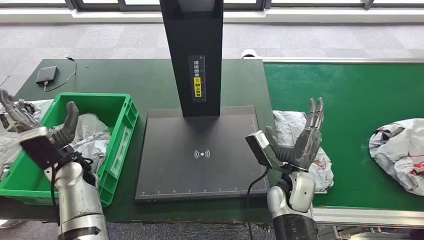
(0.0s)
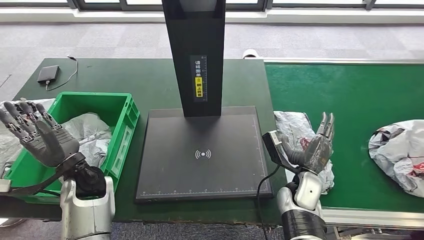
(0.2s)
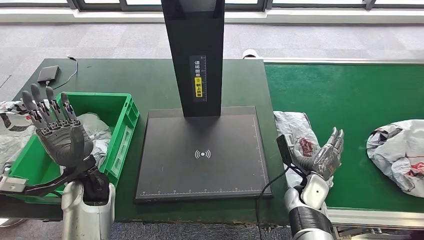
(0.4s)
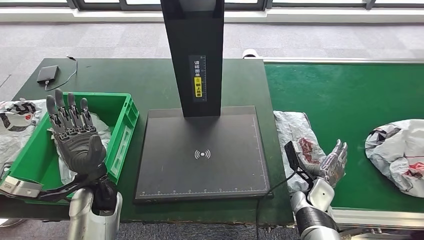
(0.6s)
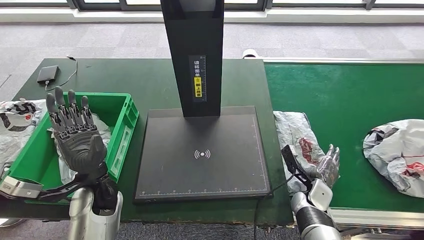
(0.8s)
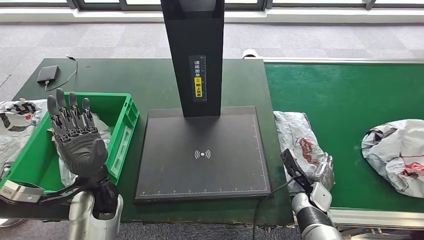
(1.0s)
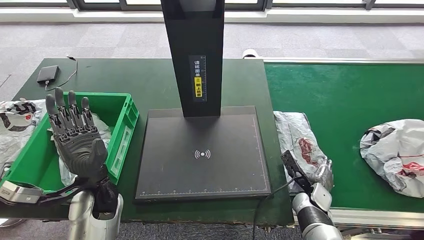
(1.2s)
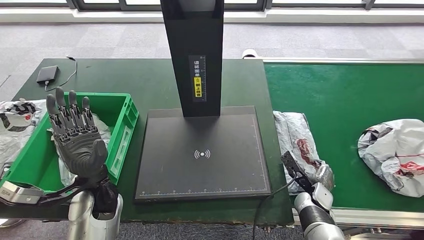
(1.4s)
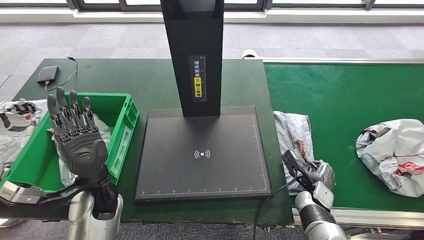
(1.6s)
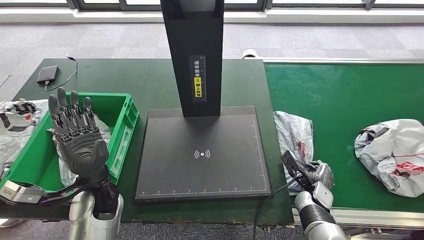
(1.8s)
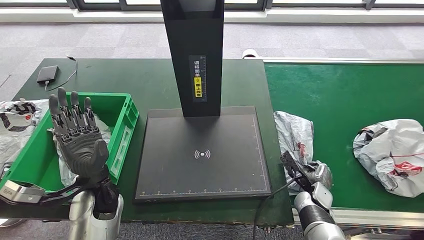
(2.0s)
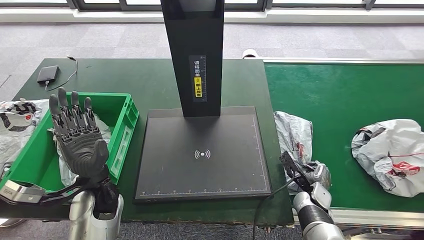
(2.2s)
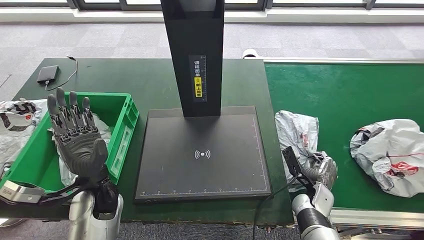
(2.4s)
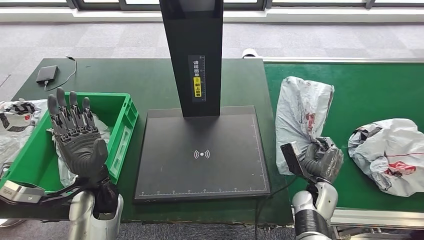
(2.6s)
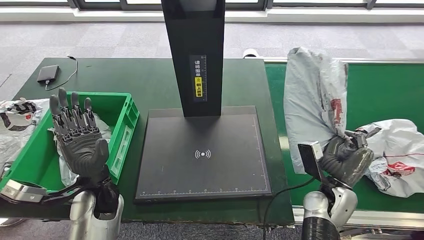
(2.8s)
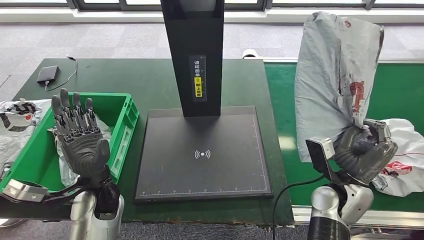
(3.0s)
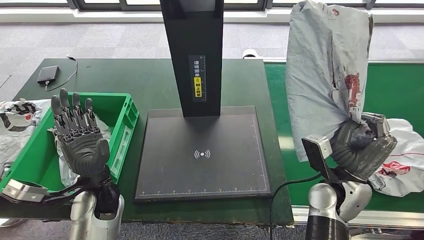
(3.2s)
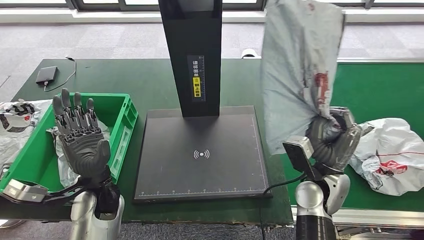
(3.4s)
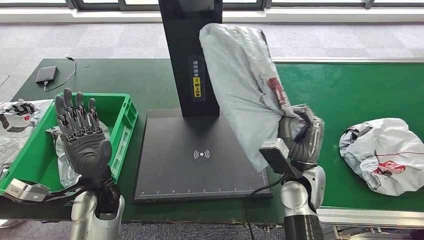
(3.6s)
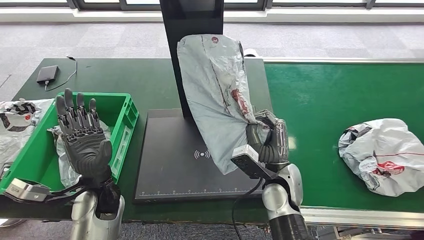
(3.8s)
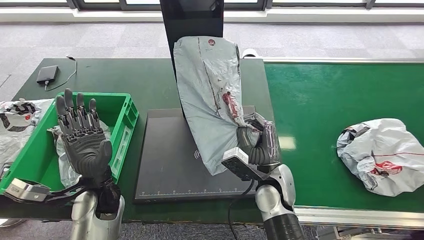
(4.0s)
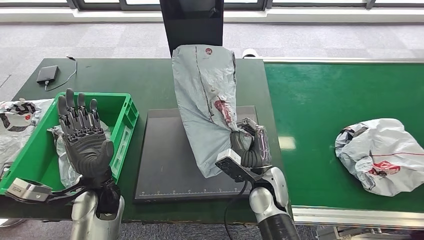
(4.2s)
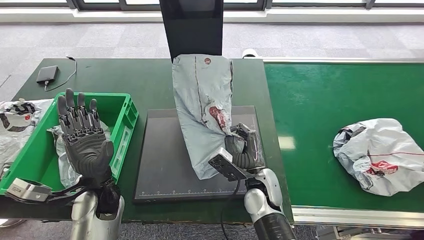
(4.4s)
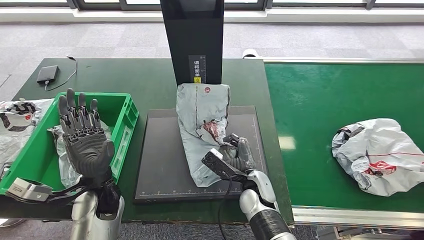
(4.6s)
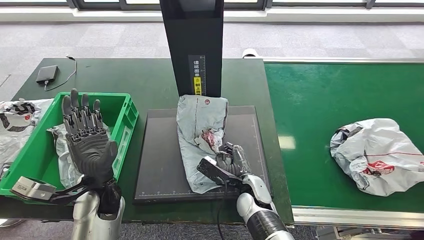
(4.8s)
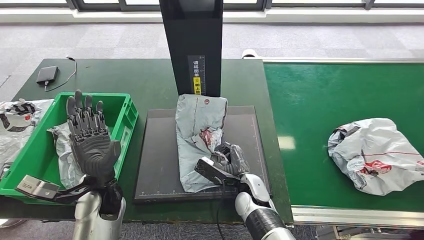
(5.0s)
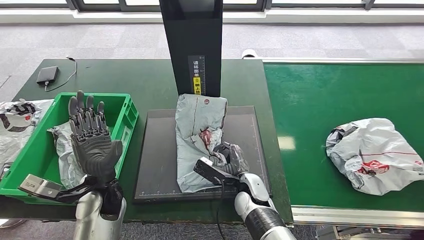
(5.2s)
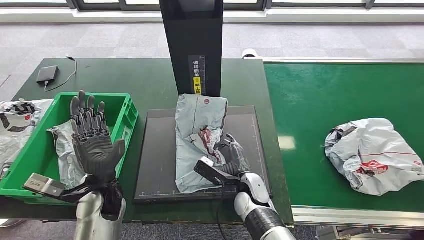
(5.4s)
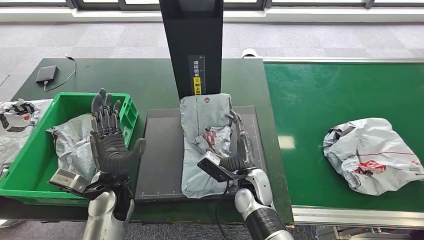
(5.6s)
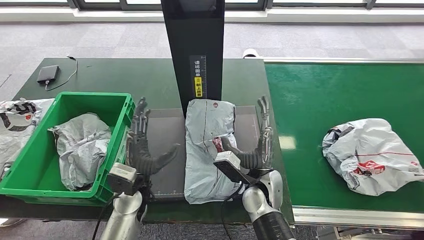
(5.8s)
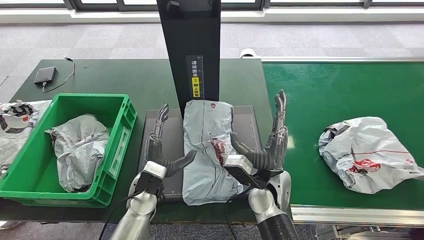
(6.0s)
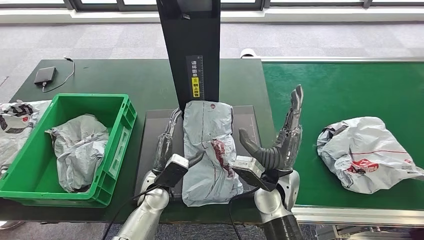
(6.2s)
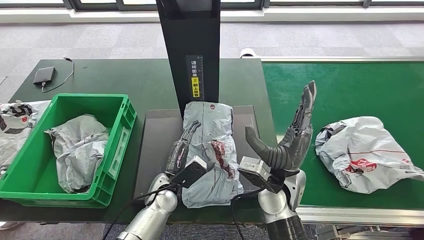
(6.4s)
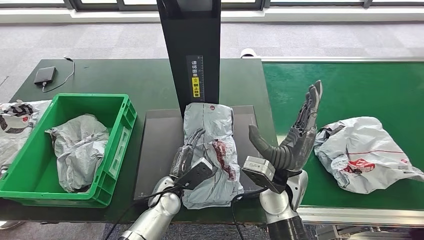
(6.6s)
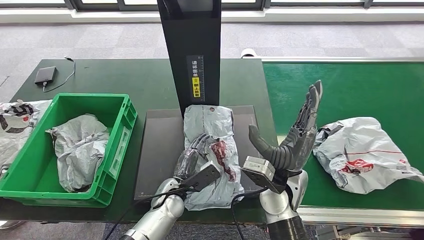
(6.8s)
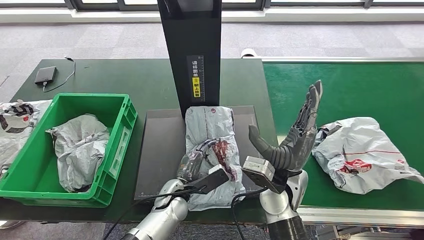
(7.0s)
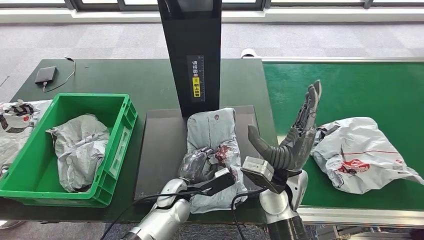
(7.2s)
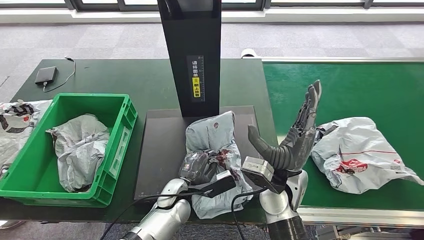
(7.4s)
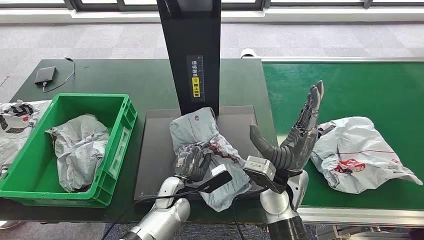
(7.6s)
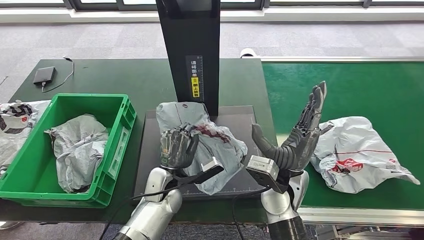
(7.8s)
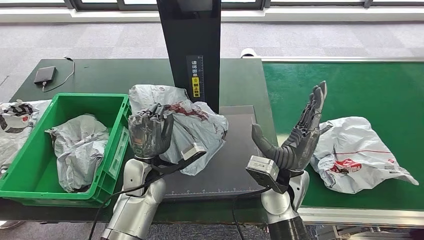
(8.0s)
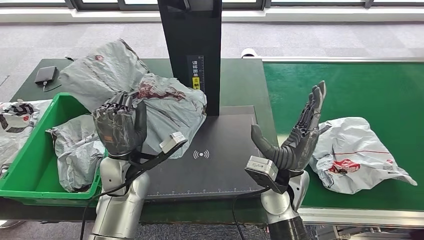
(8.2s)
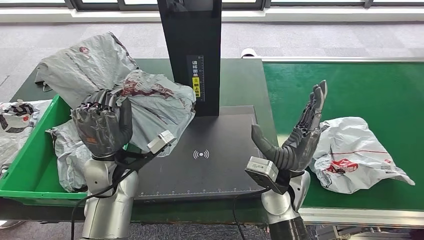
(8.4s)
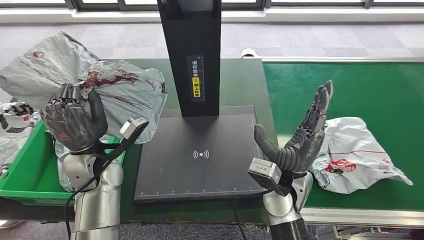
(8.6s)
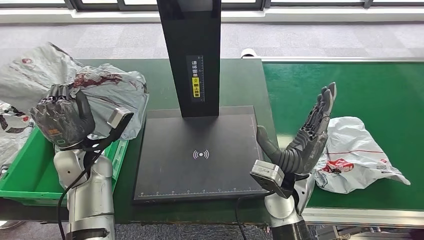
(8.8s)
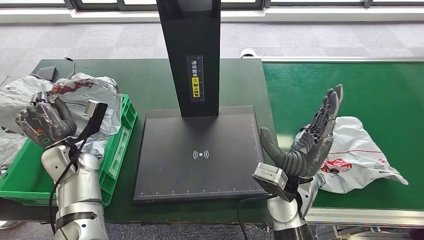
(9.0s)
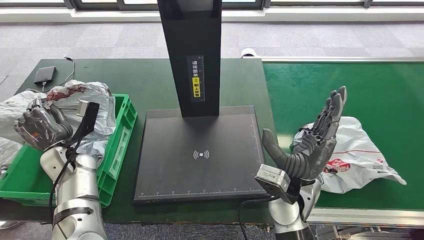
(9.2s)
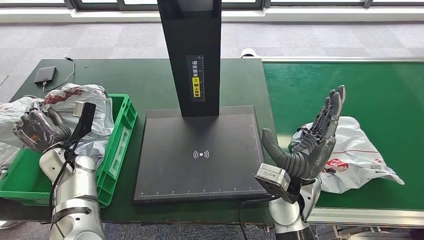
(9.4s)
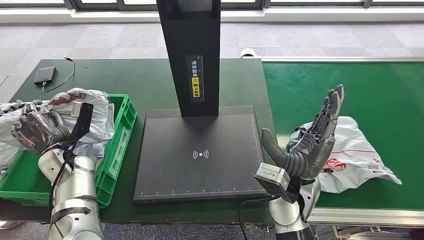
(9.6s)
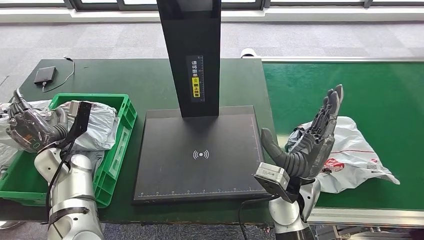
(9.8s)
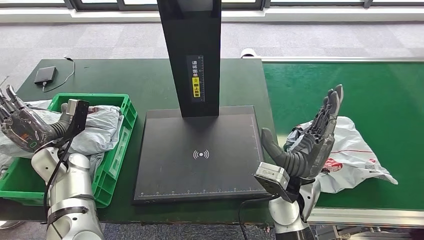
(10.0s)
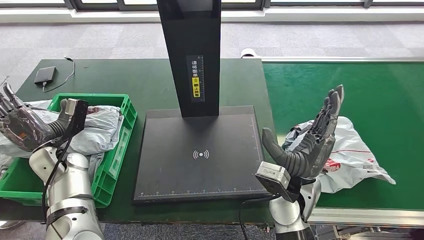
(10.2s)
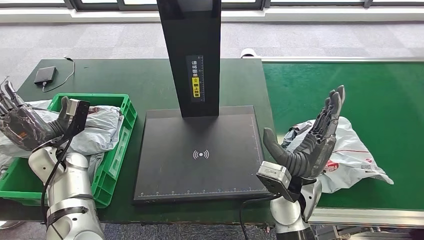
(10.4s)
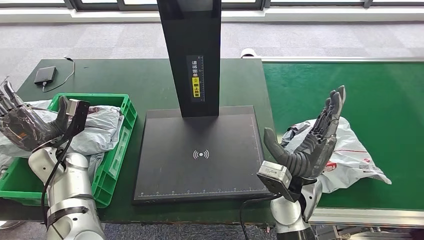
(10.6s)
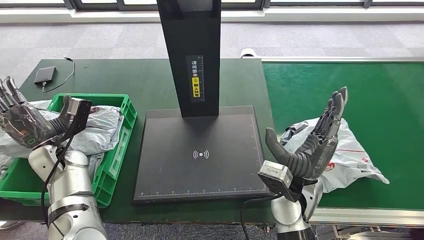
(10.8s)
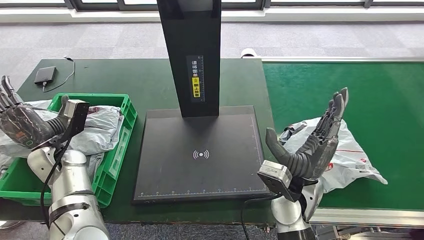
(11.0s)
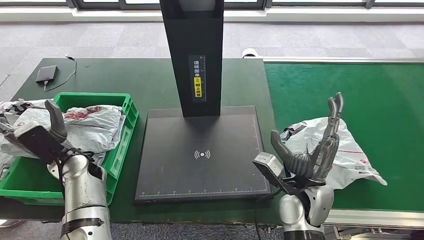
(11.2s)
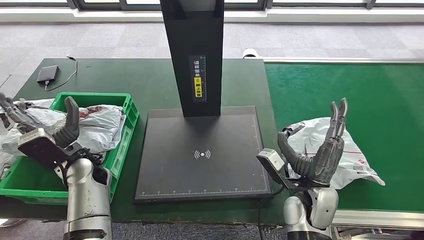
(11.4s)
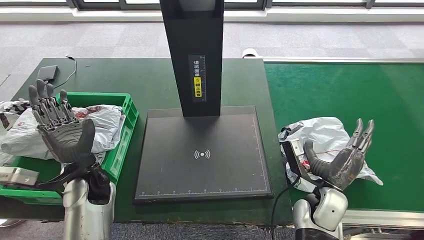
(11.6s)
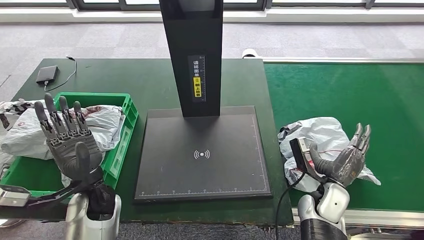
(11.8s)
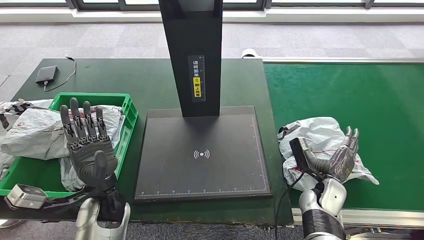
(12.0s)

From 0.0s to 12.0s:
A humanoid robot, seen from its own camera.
Step, from 0.4s to 2.8s: Pick up the parcel from the conveyor belt.
Step, from 3.0s to 5.8s: Place the parcel onto the inbound machine.
Step, from 6.0s to 8.4s: Pick up the parcel from the inbound machine.
Step, from 8.8s to 11.6s: Place the parcel into the delivery box.
From 6.0s to 7.6s: The left hand heads to the right and downward, covering about 10 cm.
From 9.0s to 10.4s: The hands move only a little.

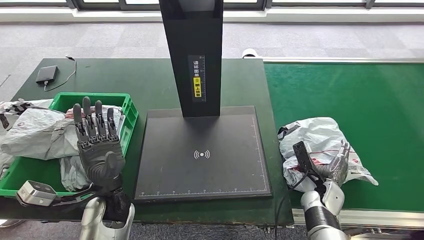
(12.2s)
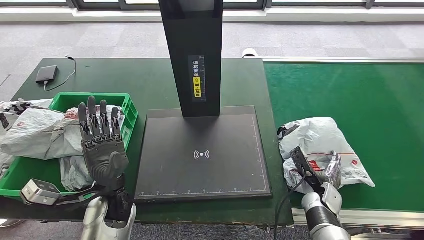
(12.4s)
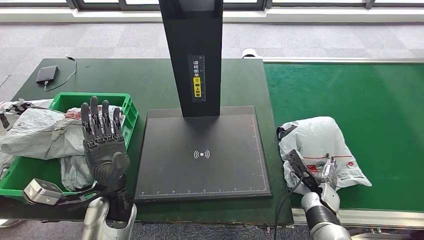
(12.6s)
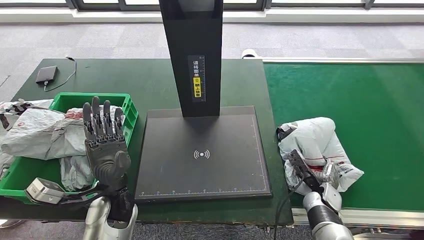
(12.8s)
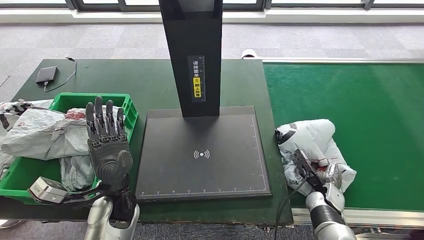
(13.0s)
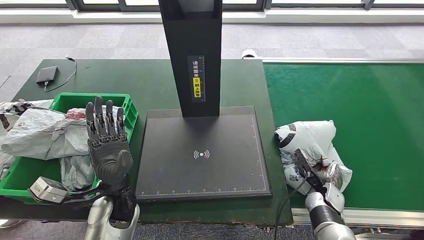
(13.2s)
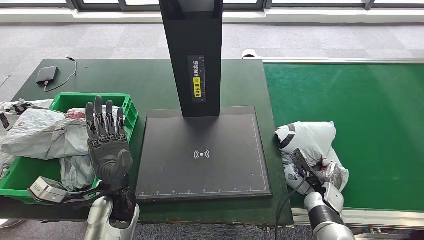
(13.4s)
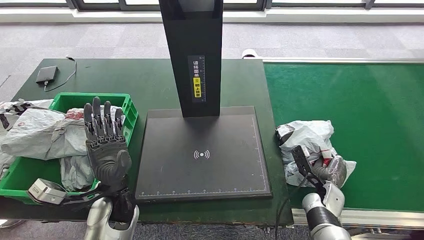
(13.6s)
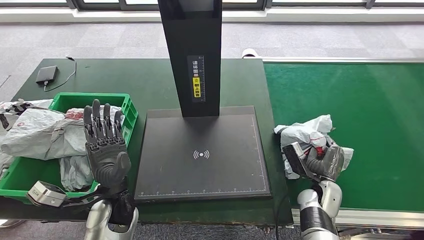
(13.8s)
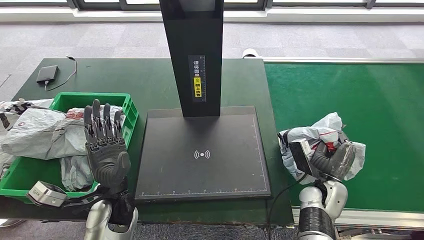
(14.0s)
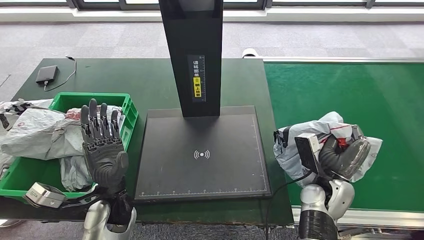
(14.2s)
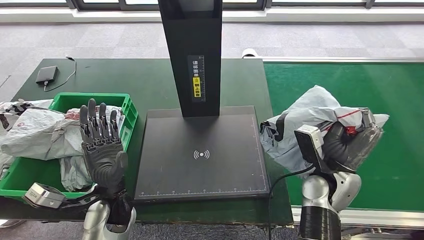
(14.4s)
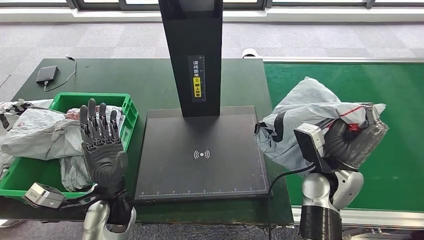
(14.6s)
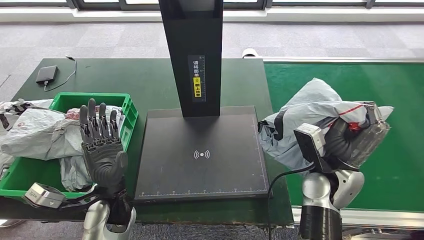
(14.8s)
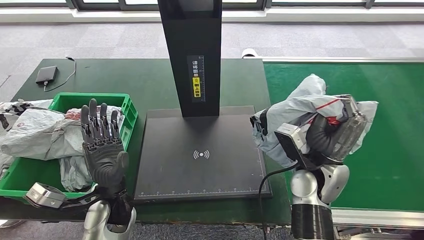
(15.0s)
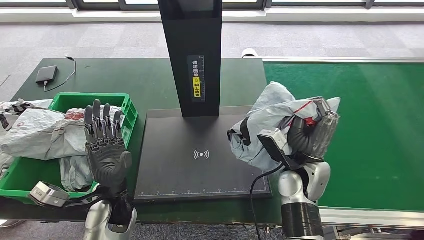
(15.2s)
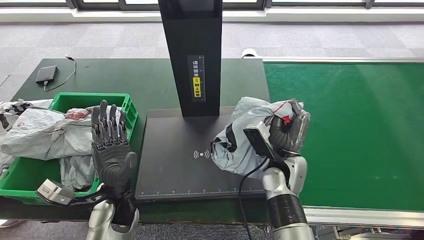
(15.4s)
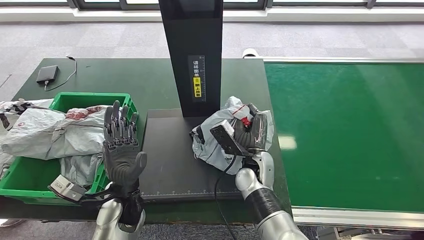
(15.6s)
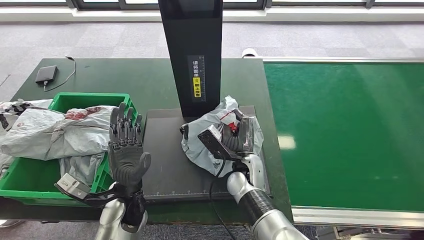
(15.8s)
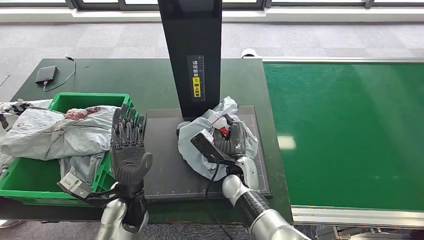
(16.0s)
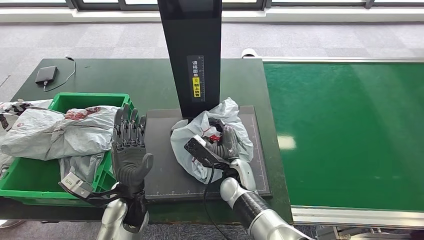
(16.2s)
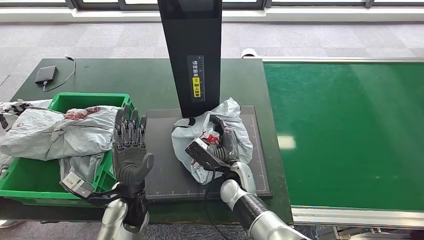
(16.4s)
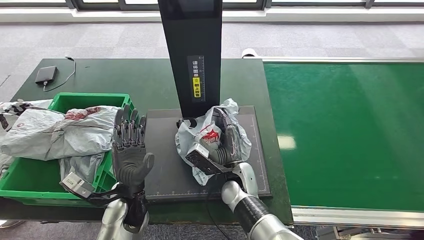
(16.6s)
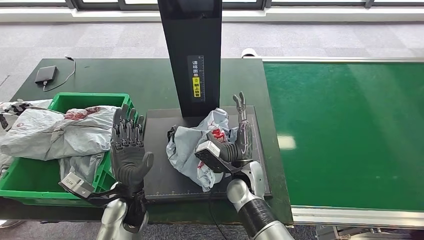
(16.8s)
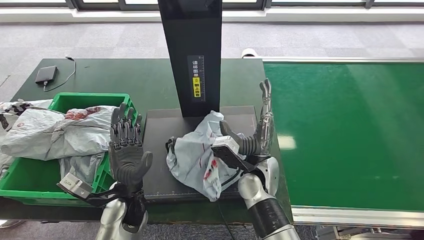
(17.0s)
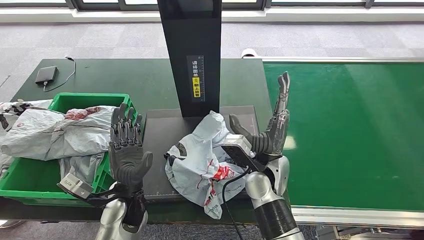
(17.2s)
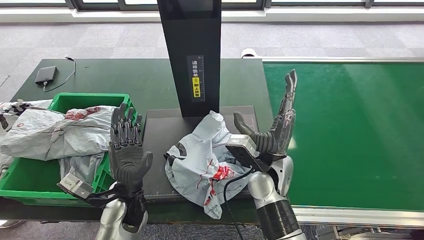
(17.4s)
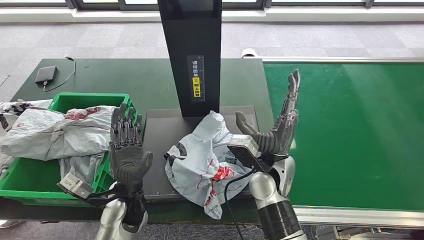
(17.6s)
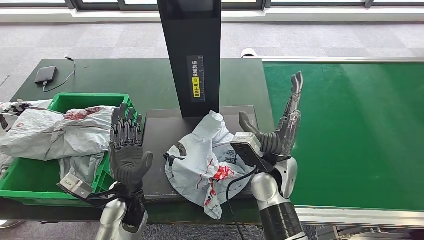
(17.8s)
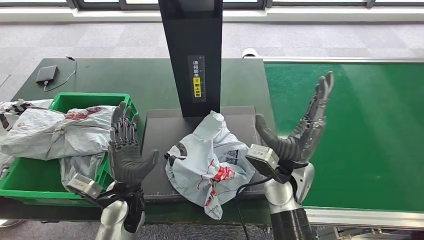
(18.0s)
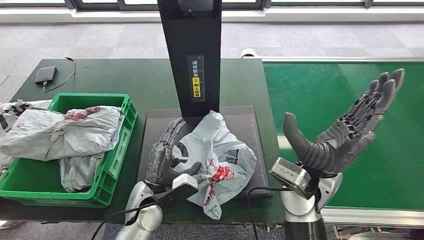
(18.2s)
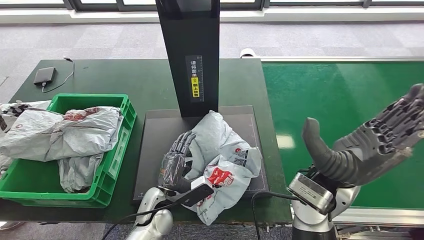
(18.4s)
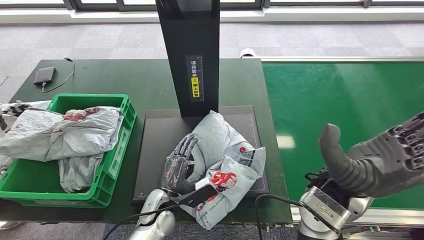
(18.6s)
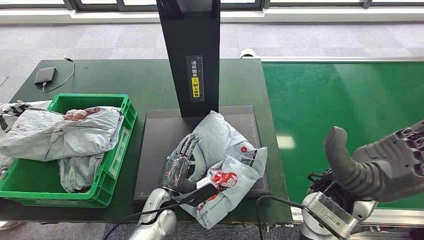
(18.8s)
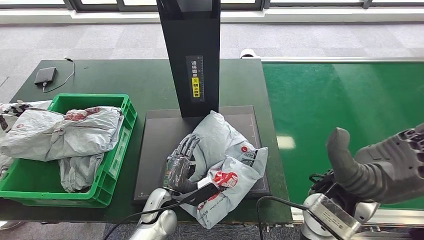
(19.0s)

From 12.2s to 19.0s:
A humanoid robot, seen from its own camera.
Step, from 12.2s to 14.4s: Pick up the parcel from the conveyor belt.
Step, from 14.6s to 16.4s: Place the parcel onto the inbound machine.
From 13.6s to 15.0s: The right hand is displaced upward and to the left by about 20 cm.
From 16.2s to 17.6s: The right hand shifts roughly 10 cm upward and to the right.
